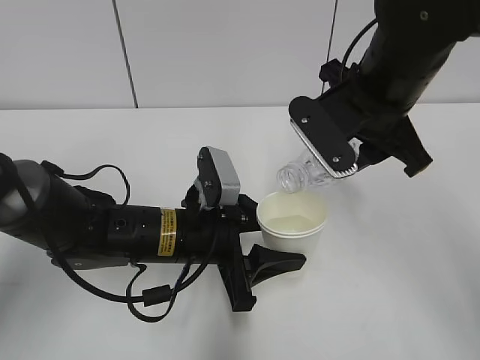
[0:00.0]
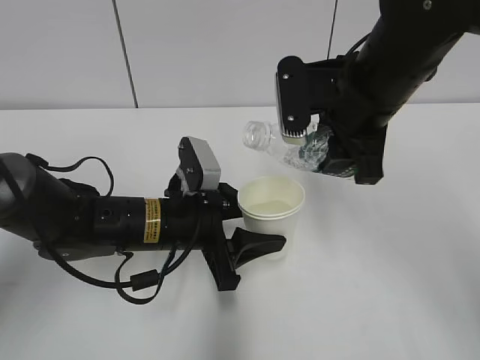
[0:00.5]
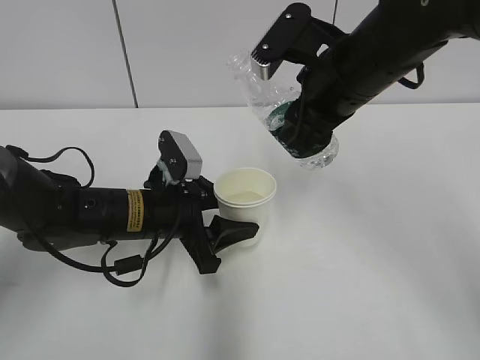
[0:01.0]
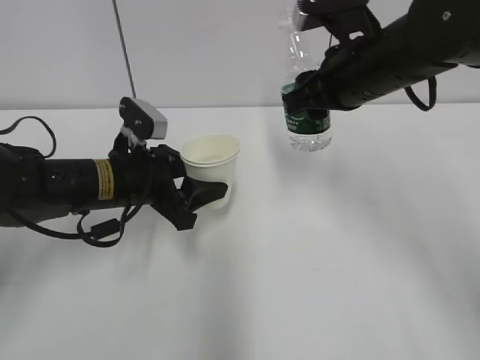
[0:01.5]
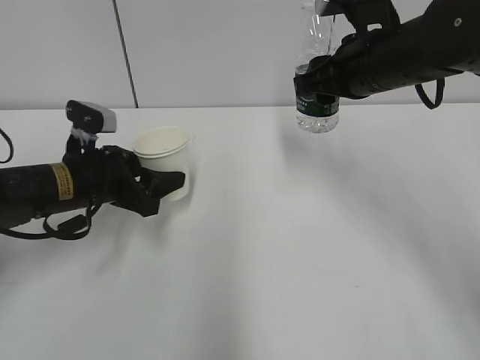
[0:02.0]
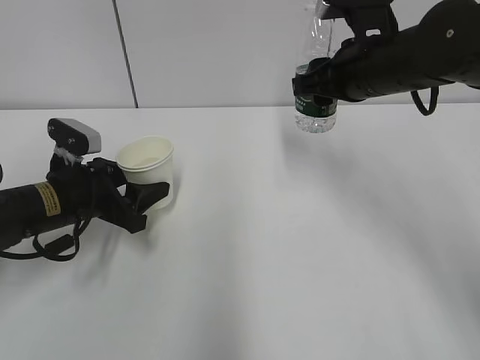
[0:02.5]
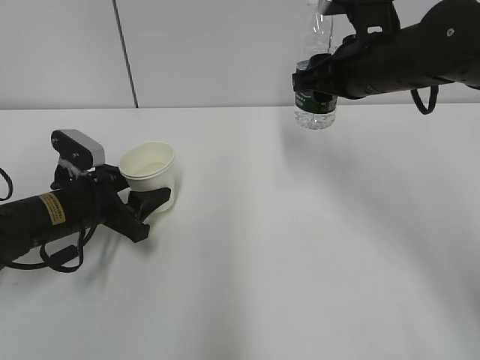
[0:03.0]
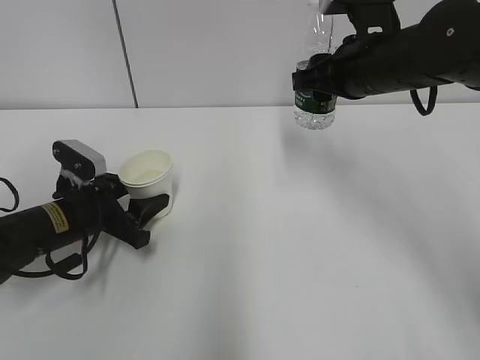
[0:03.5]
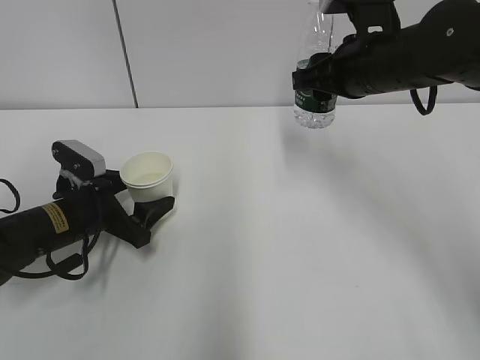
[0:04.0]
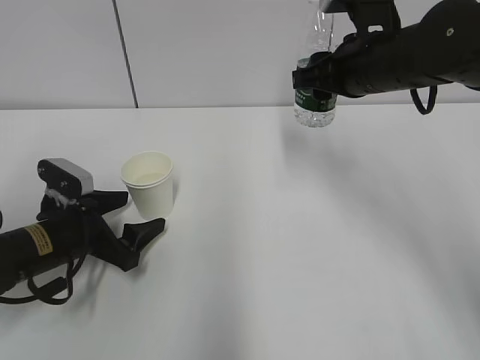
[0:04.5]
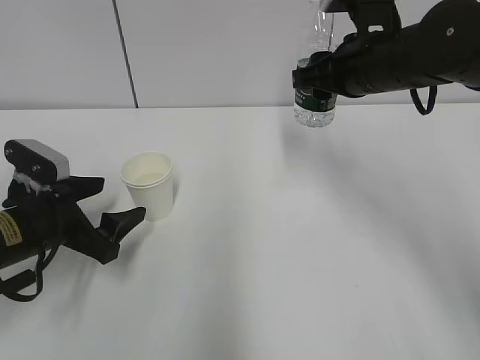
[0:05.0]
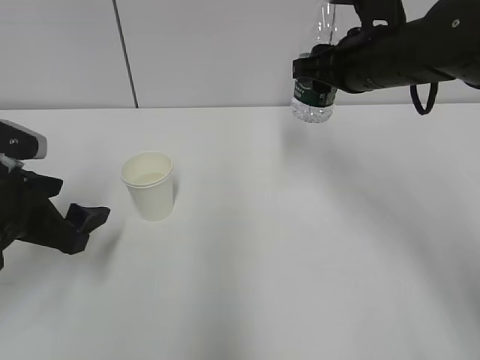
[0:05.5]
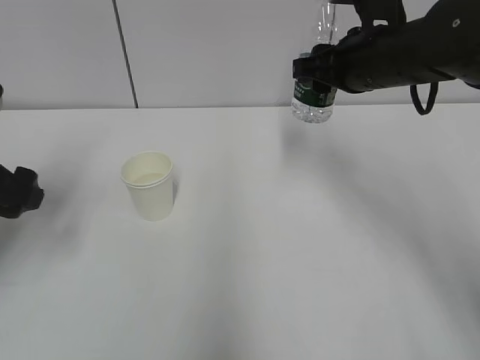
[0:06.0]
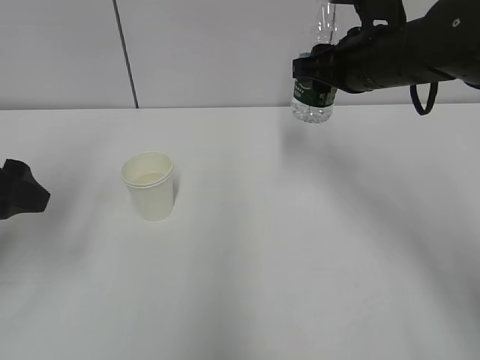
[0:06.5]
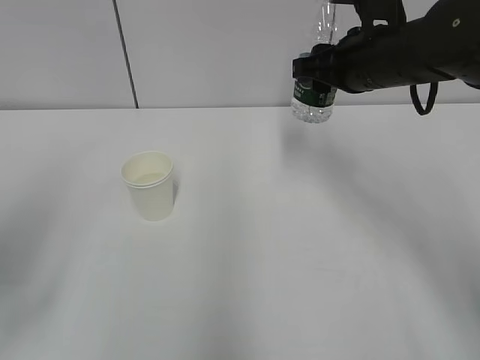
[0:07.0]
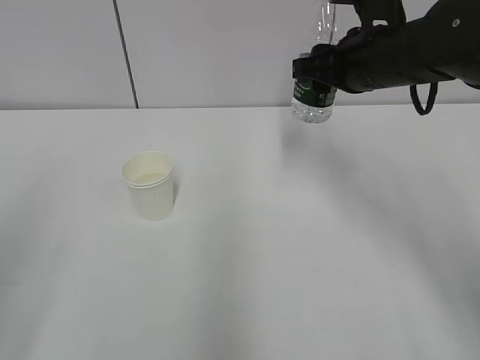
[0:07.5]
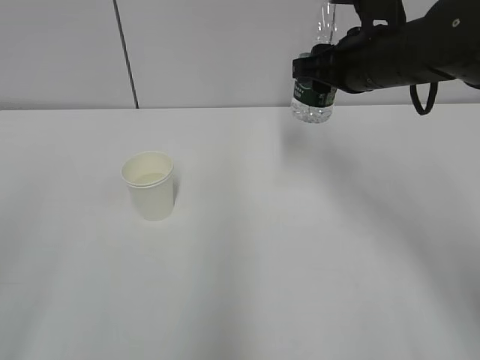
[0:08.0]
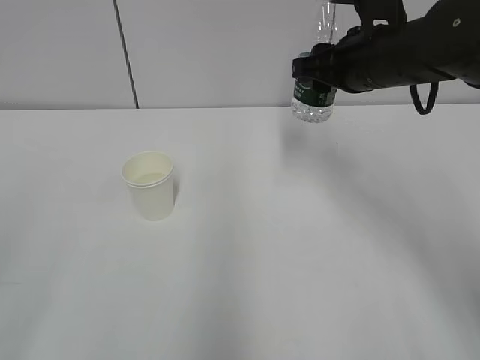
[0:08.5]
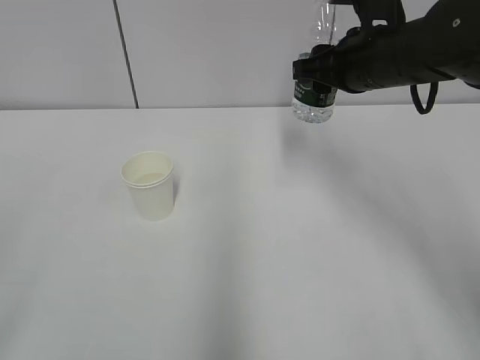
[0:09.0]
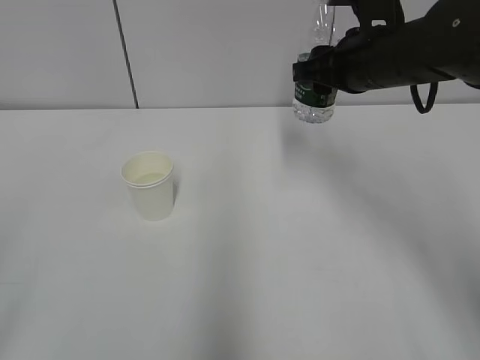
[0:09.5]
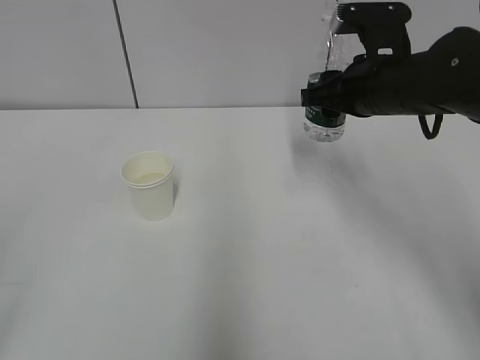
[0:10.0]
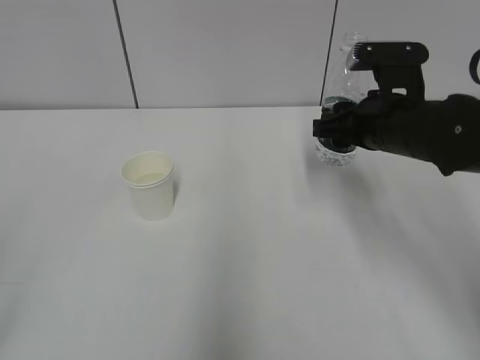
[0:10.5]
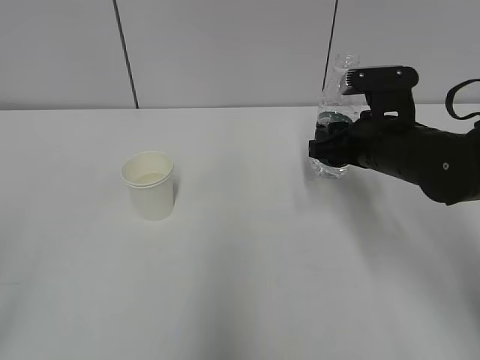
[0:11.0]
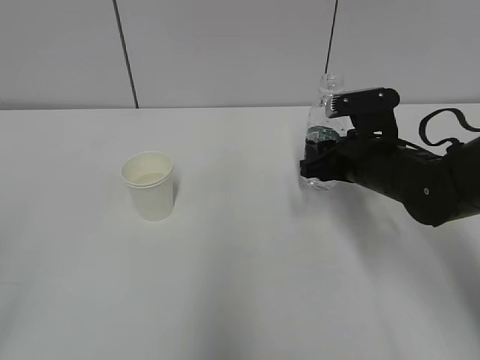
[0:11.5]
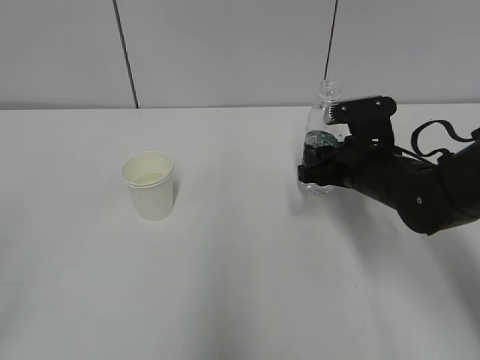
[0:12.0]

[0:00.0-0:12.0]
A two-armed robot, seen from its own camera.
Step, 0:00.0 to 0:03.5: Place the water bottle with the right hand.
0:00.0 to 0:02.0: The left gripper heads to the left and forward, covering about 15 cm. Meanwhile the right gripper goes some 5 cm forward.
0:02.0 to 0:04.0: The left gripper shifts approximately 5 cm downward, and opens up.
0:04.0 to 0:06.0: The left gripper is displaced upward, to the left and backward by approximately 15 cm.
0:06.0 to 0:08.0: The left gripper moves backward, approximately 25 cm.
0:08.0 to 0:10.0: The left gripper closes its fingers.
0:10.0 to 0:12.0: The right gripper goes approximately 10 cm downward.

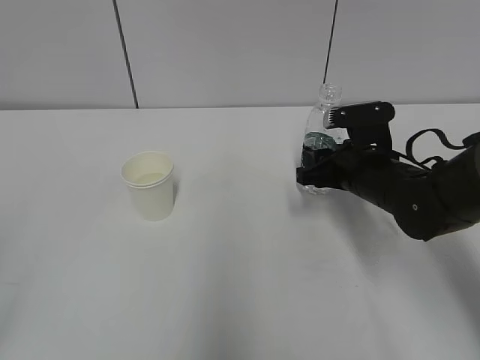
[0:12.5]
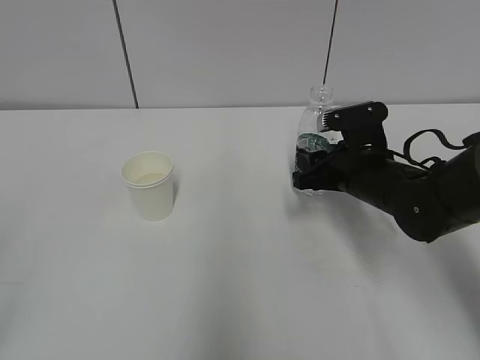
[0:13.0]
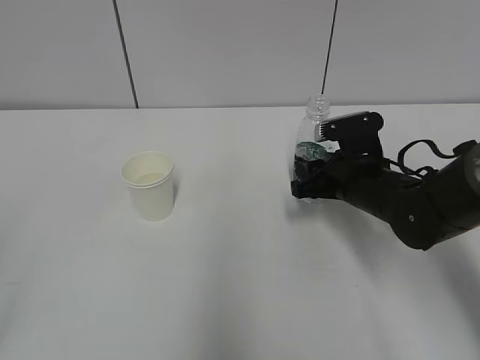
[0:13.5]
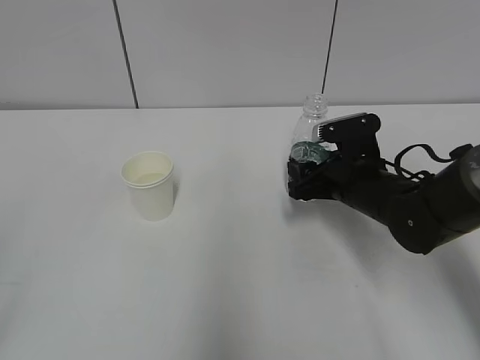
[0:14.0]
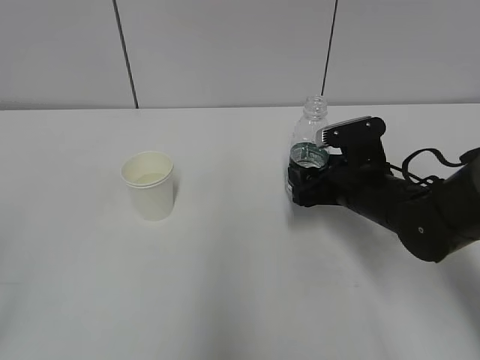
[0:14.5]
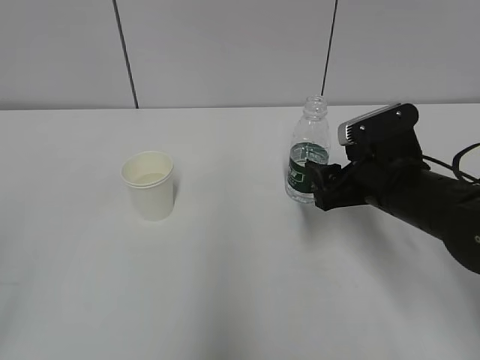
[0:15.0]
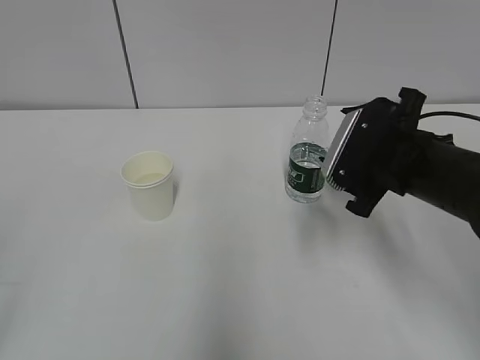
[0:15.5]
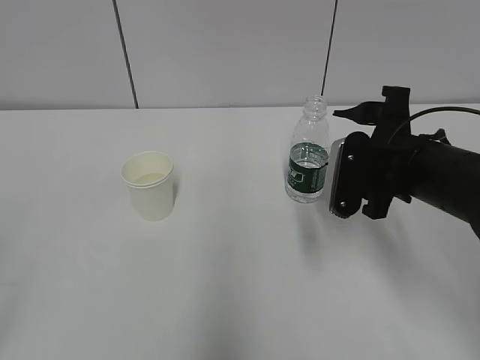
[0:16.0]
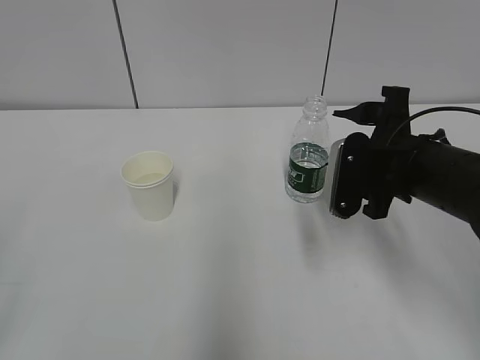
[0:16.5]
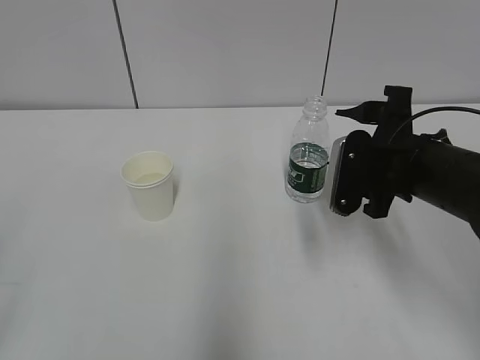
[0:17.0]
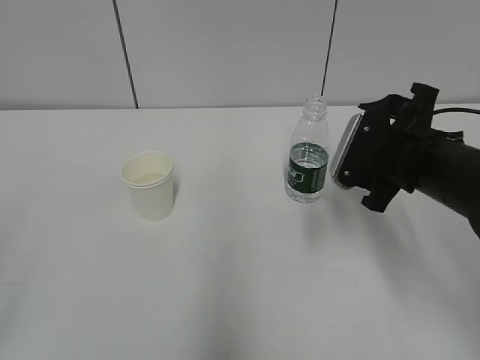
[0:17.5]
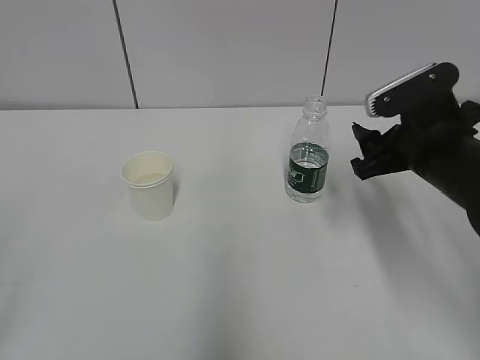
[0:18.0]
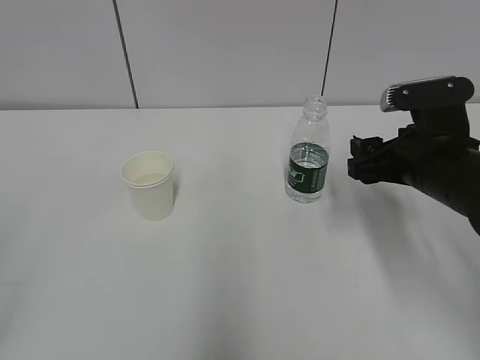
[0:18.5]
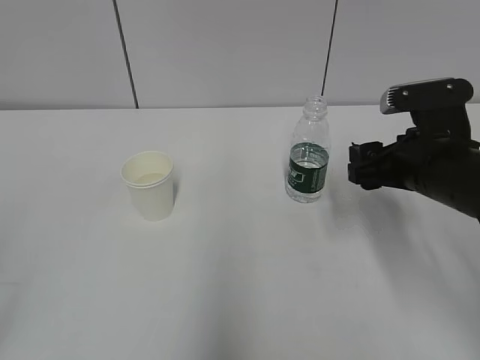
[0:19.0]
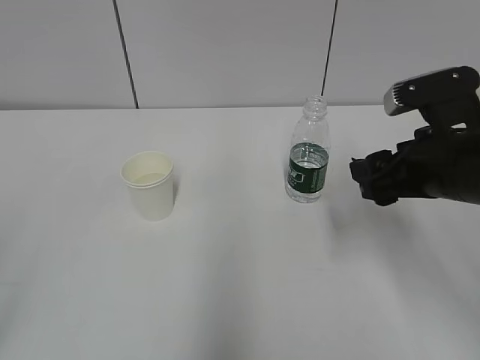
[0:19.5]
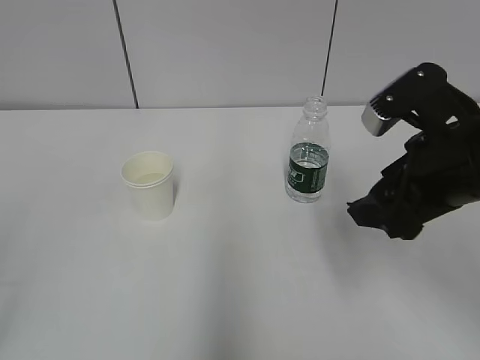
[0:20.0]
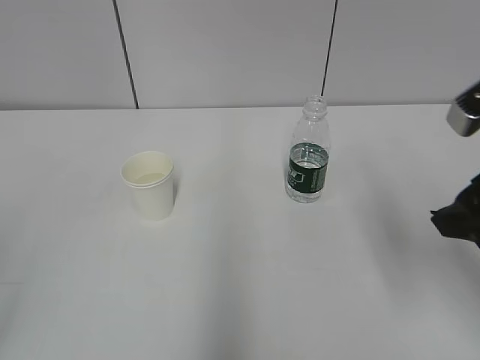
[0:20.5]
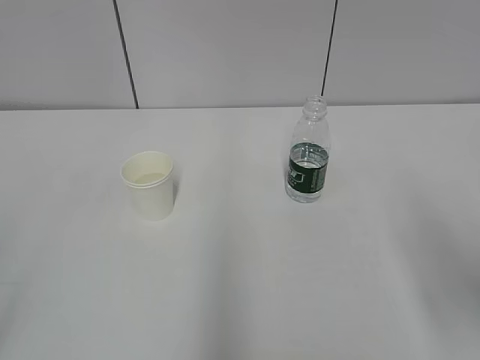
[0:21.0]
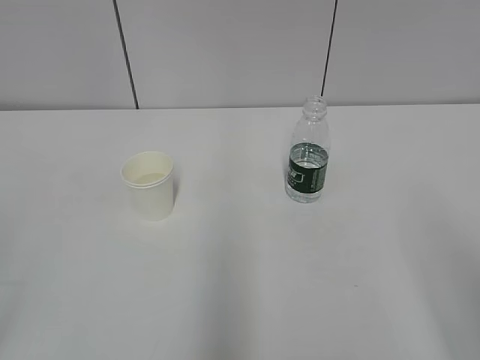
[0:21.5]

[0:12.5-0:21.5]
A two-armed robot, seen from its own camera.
0:12.5 to 0:14.5: The right gripper opens its fingers.
0:14.5 to 0:17.0: The right gripper travels upward by some 10 cm.
0:19.5 to 0:21.5: The right gripper goes about 20 cm backward.

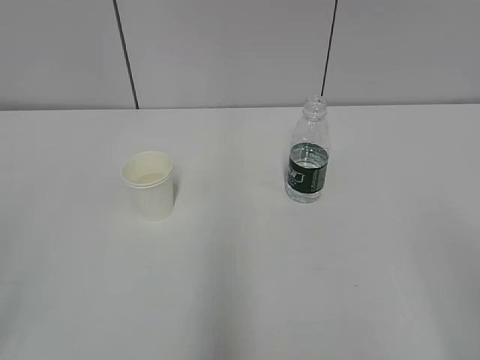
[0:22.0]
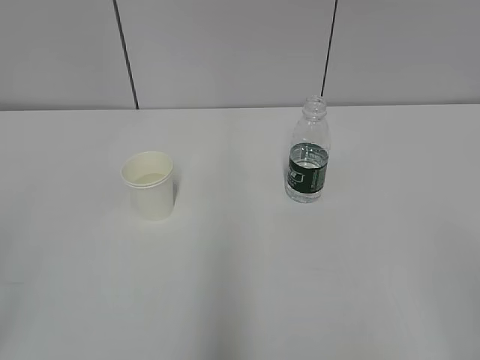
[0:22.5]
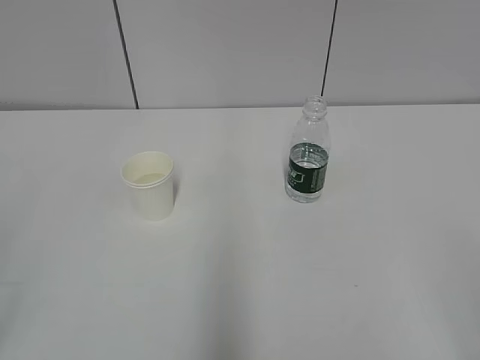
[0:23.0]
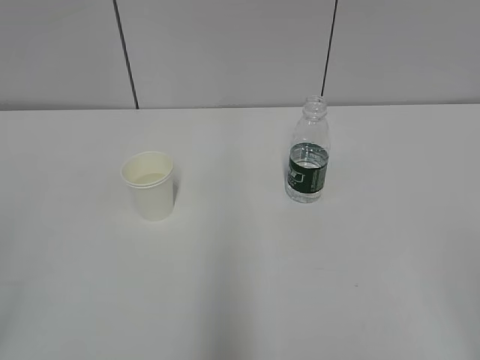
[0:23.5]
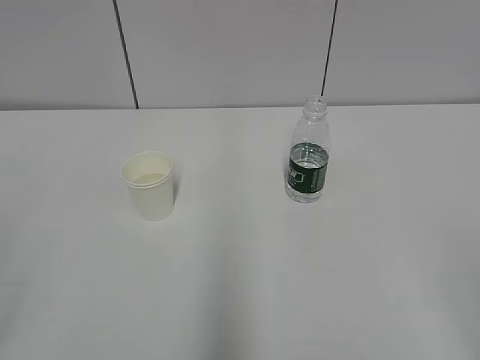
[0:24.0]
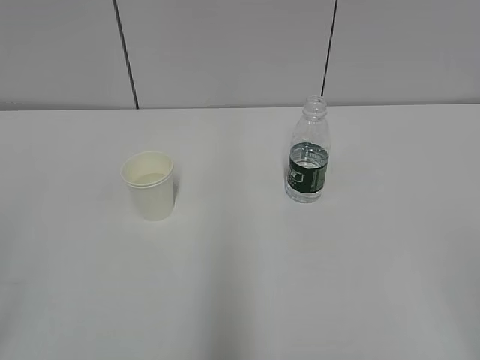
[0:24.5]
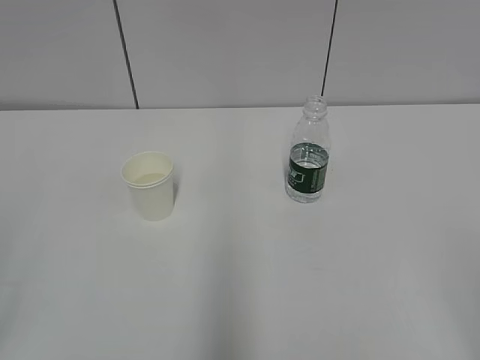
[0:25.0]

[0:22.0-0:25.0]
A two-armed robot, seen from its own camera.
0:23.5 to 0:25.0: Both grippers stay put.

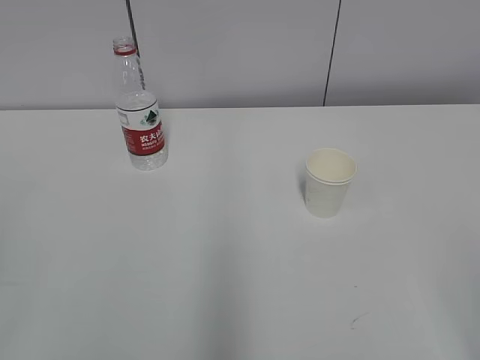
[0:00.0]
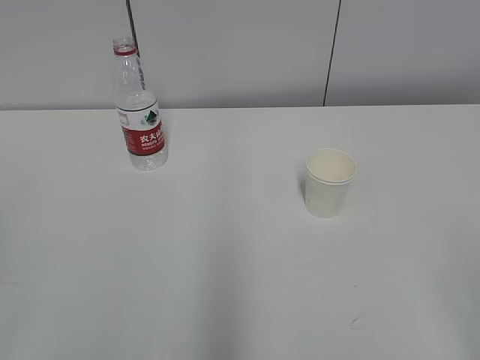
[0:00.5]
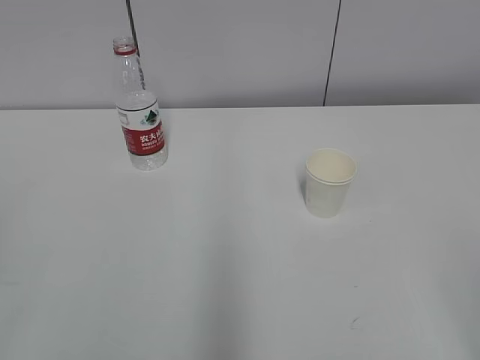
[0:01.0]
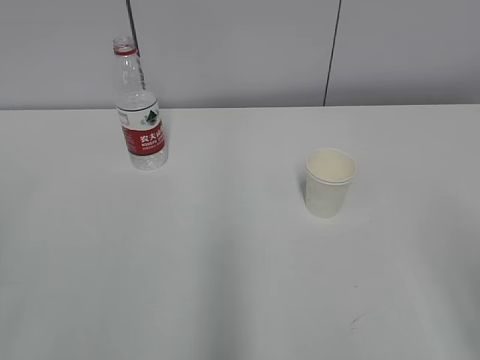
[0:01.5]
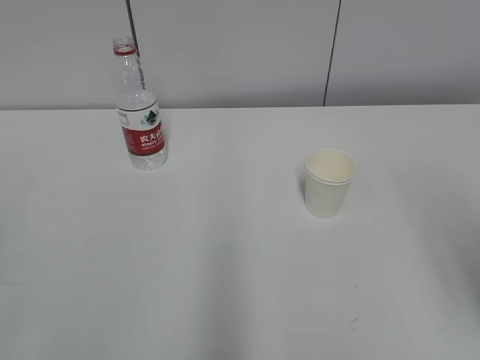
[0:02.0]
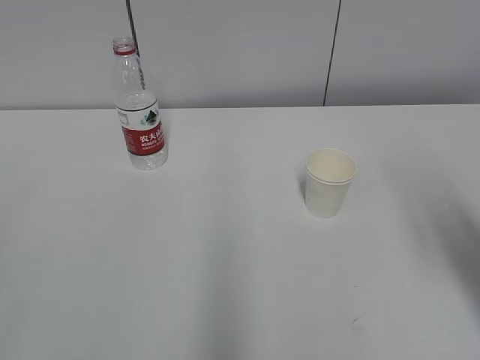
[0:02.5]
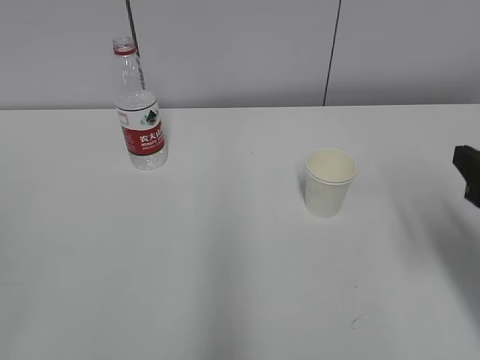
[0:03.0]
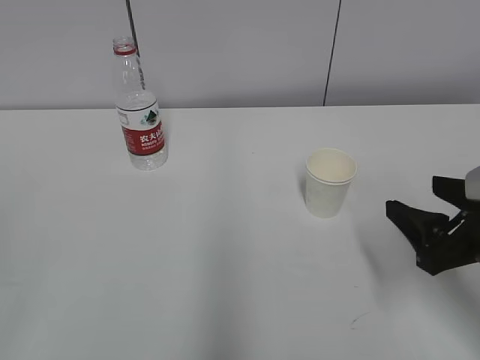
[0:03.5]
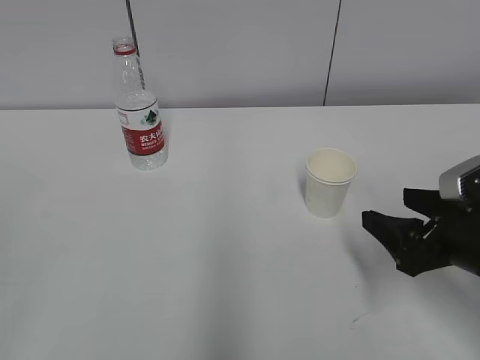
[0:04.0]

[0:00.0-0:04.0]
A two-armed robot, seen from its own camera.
0:02.0 to 0:04.0: The right gripper moves downward and forward, roughly 20 cm.
